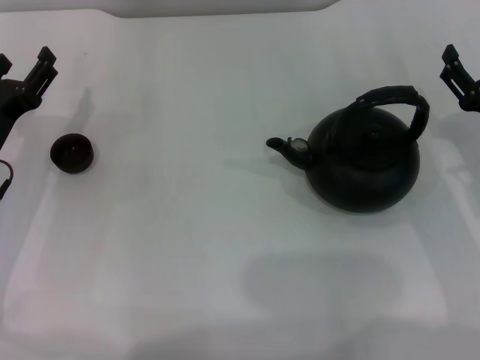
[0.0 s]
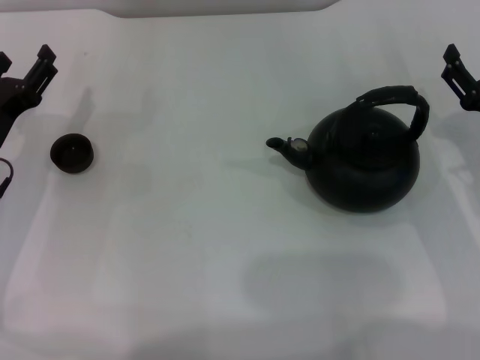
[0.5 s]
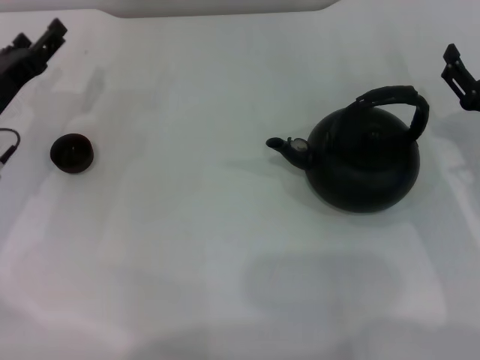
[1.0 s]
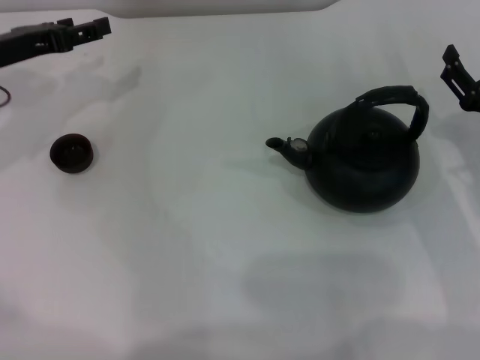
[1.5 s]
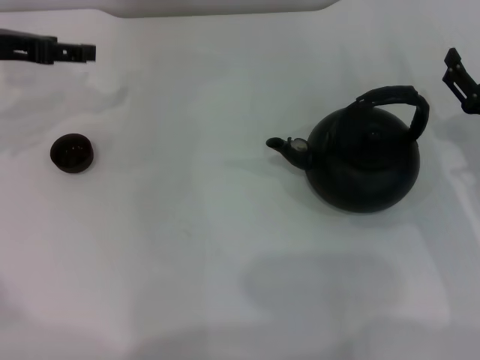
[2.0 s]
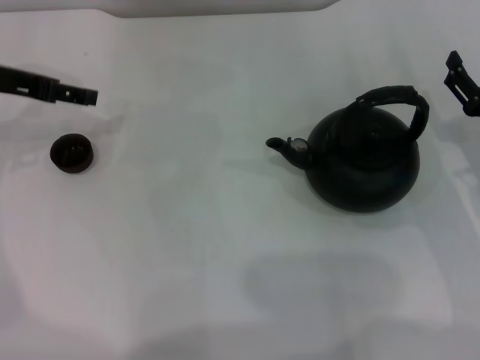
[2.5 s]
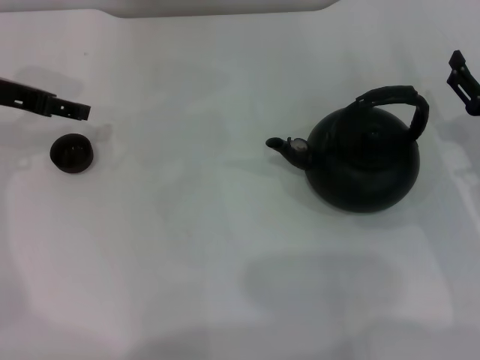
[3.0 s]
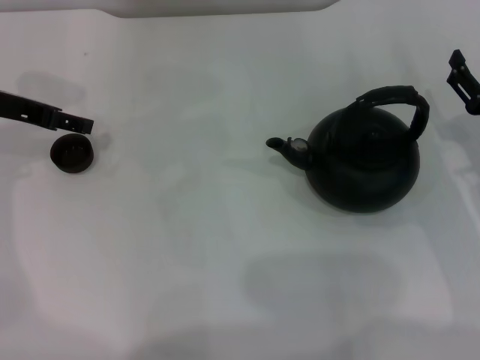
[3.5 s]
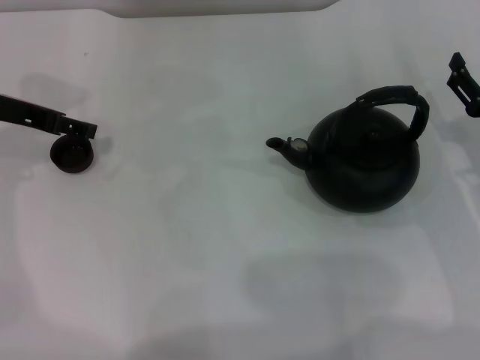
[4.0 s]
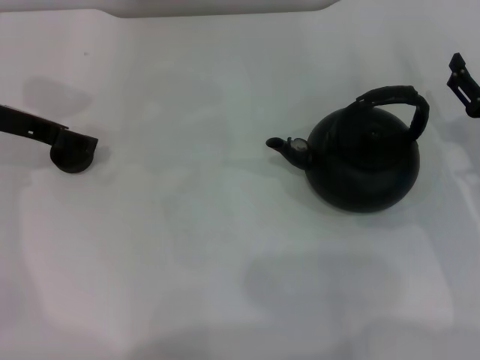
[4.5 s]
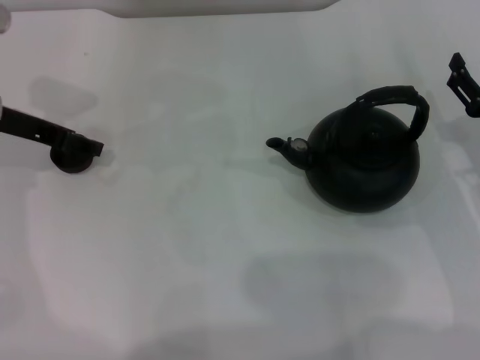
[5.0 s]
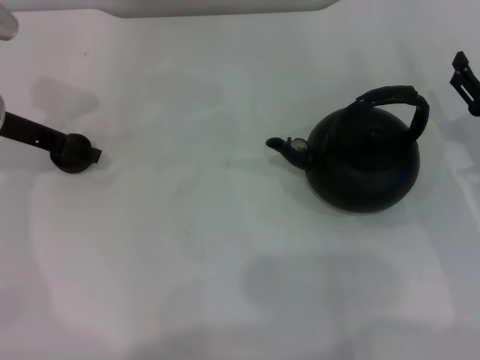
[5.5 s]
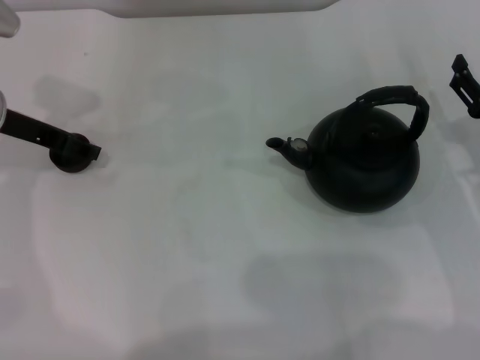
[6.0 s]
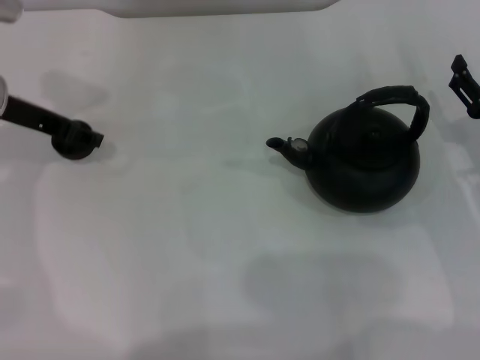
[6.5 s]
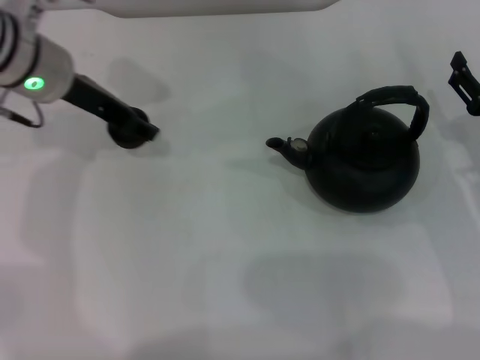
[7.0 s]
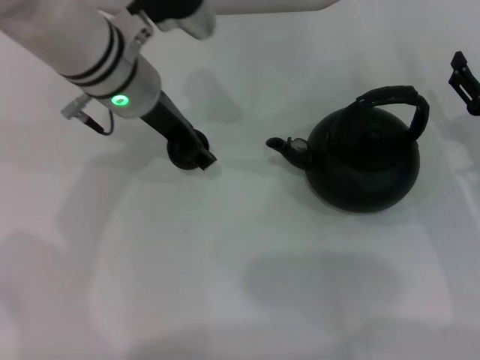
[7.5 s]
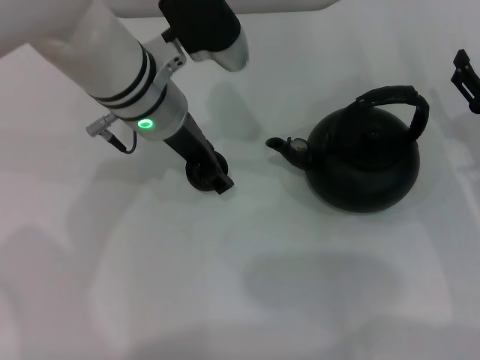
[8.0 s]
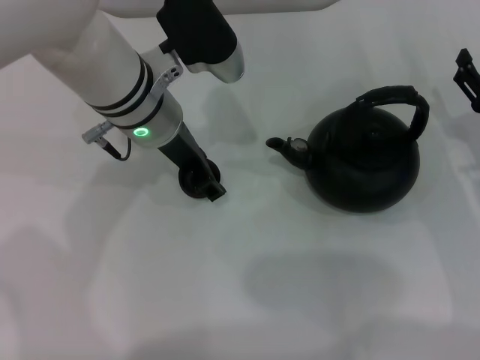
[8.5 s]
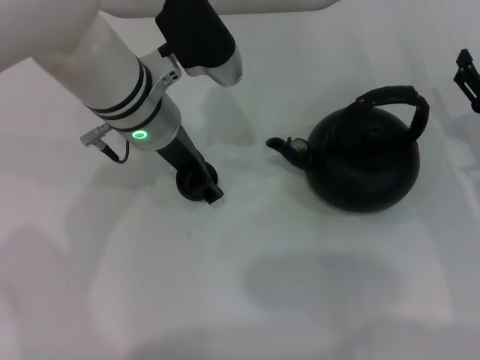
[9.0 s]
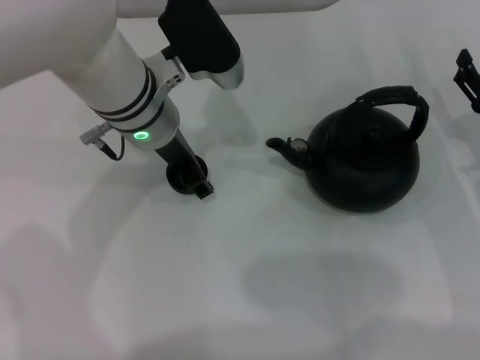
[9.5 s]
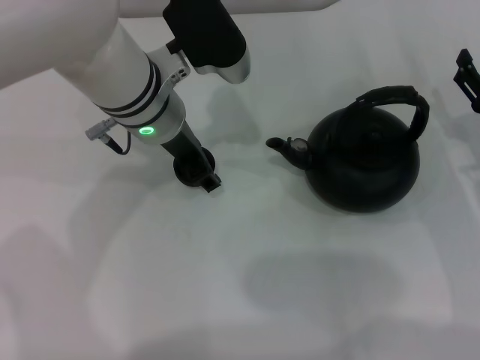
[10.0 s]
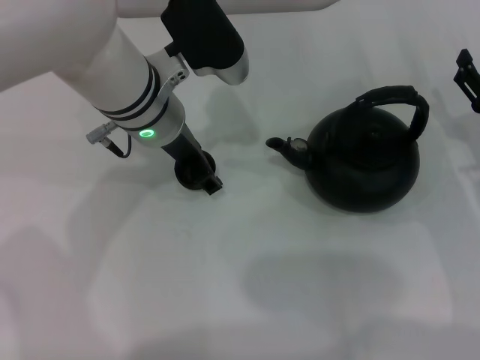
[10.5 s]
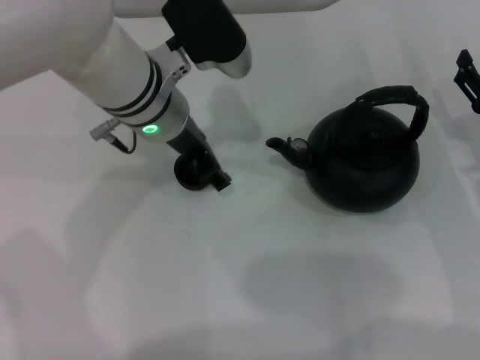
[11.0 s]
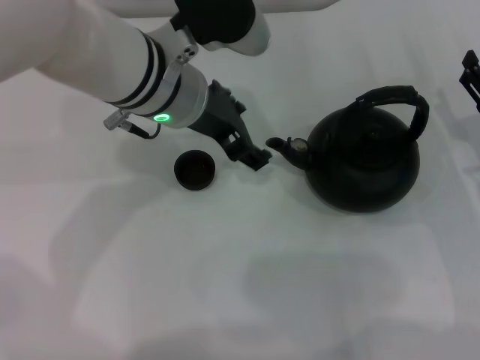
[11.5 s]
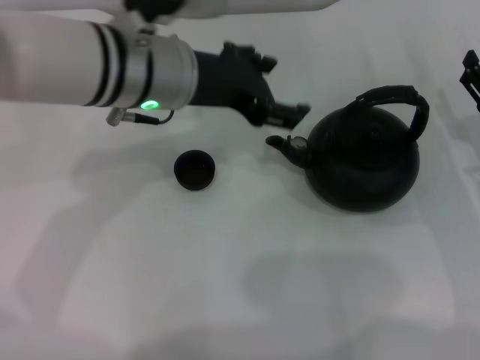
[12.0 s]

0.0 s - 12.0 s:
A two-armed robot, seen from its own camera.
Task of the whole recording: Grasp the handle of the teapot with one hand and pour tea into the teacup.
Step, 0.0 s - 6.5 s: Pick up the teacup with the left gripper.
Step, 7.0 s - 11.0 s: Place the teacup in the center of view with the left gripper.
0.0 s - 2.0 s: The left gripper goes some 15 cm upward and forward.
2.0 s - 4.0 s: The grippers stay close to where they were, moving slightly.
4.0 s - 6.0 s: The grippers stay close to where they were, moving slightly.
6.0 s - 8.0 s: The left gripper travels to the right by roughly 20 cm, and closes.
8.0 s - 10.0 s: The grippers stay close to where they were, moving slightly.
10.0 s - 12.0 s: The left gripper opens its fingers.

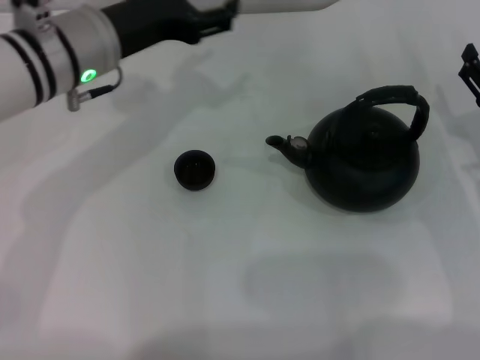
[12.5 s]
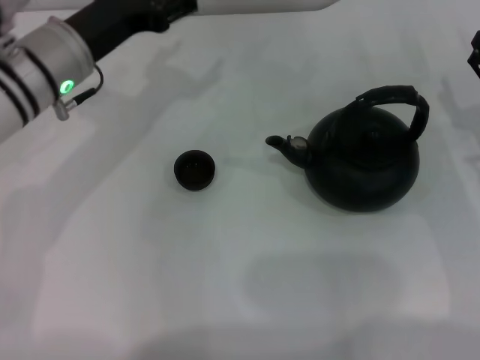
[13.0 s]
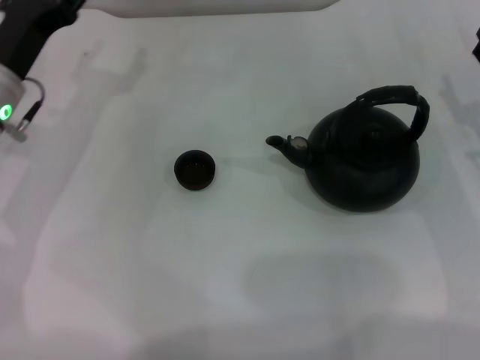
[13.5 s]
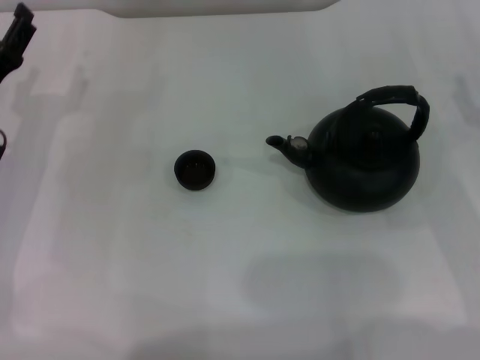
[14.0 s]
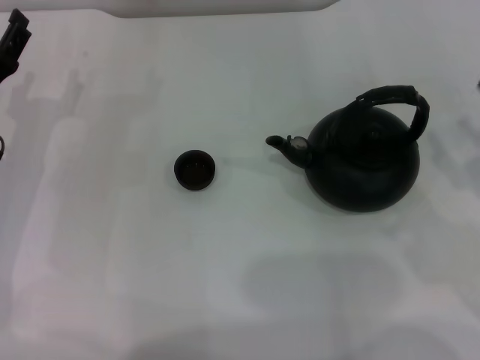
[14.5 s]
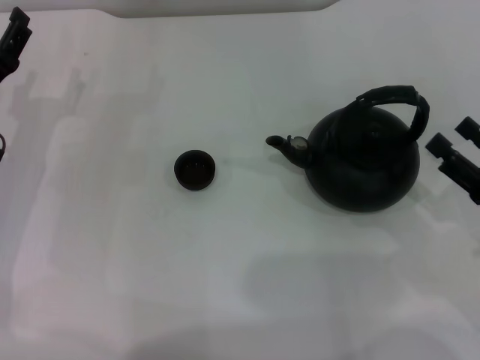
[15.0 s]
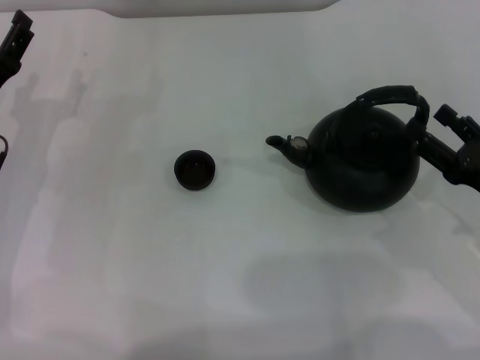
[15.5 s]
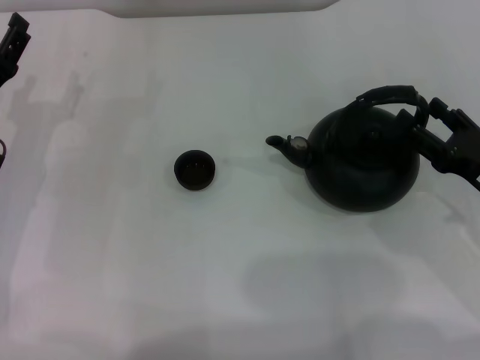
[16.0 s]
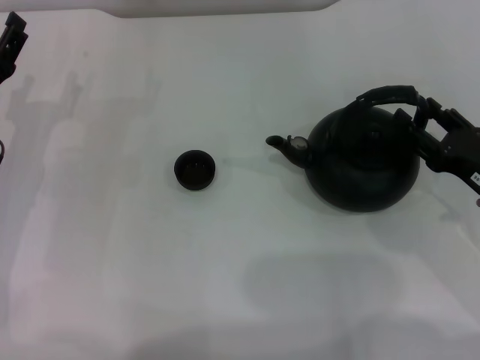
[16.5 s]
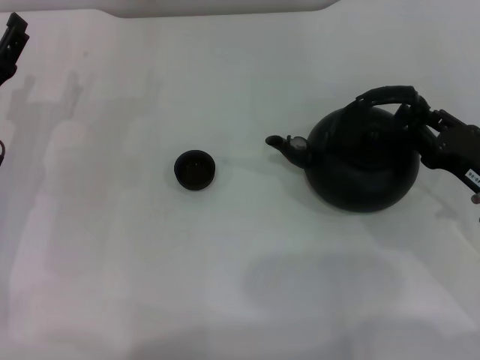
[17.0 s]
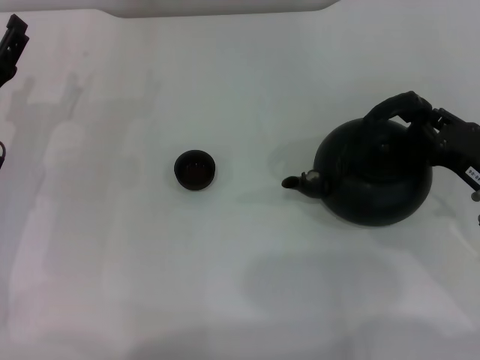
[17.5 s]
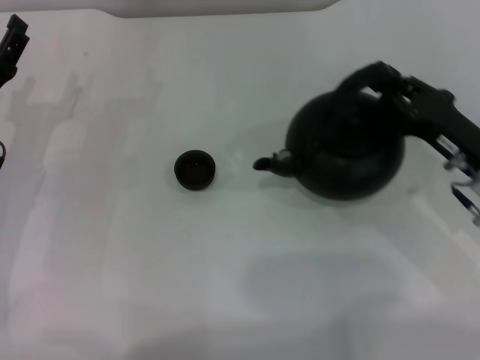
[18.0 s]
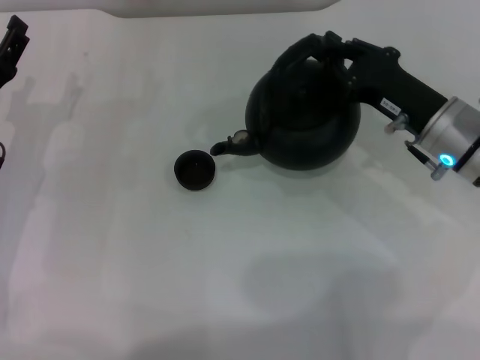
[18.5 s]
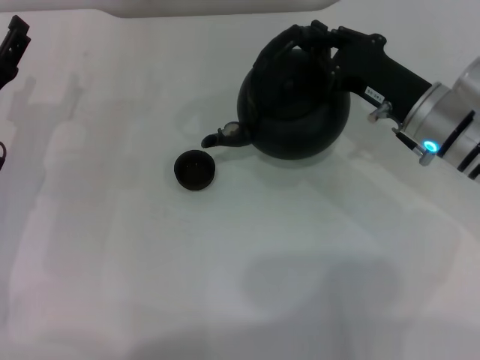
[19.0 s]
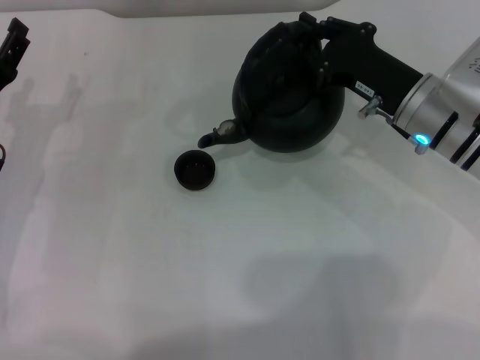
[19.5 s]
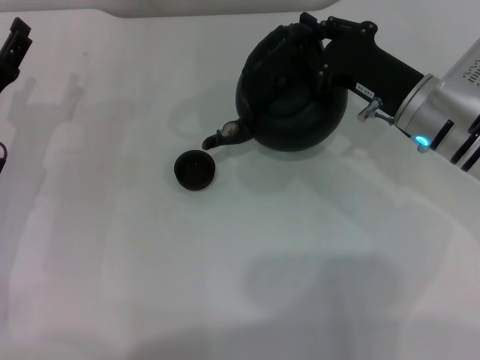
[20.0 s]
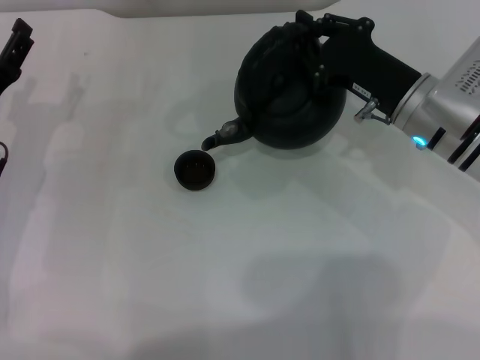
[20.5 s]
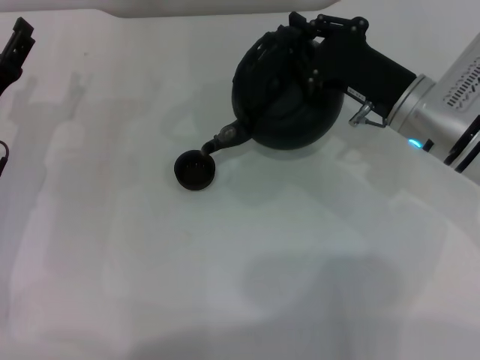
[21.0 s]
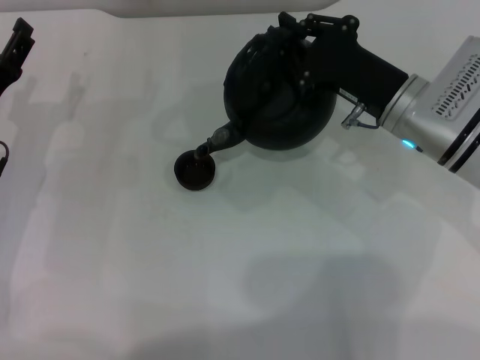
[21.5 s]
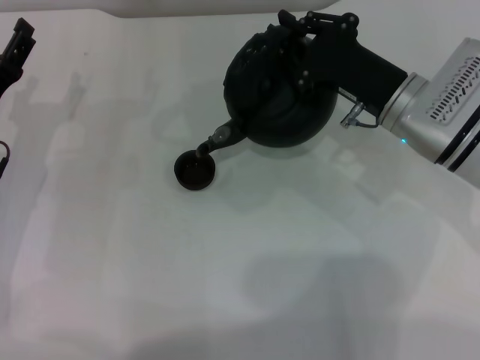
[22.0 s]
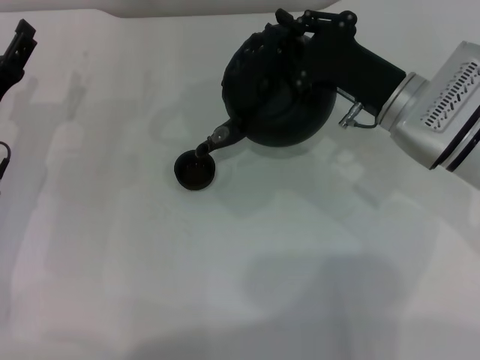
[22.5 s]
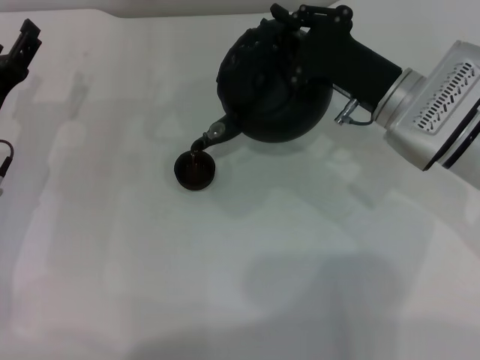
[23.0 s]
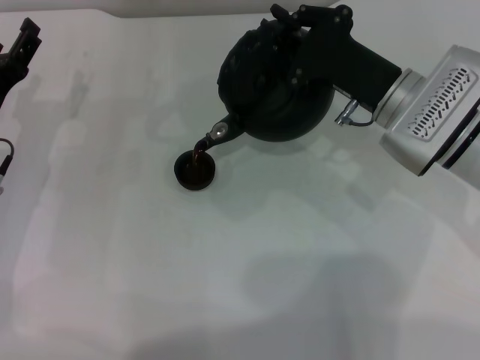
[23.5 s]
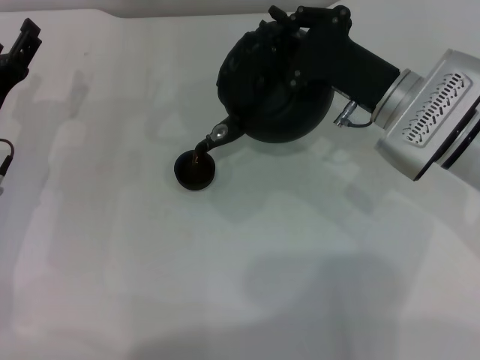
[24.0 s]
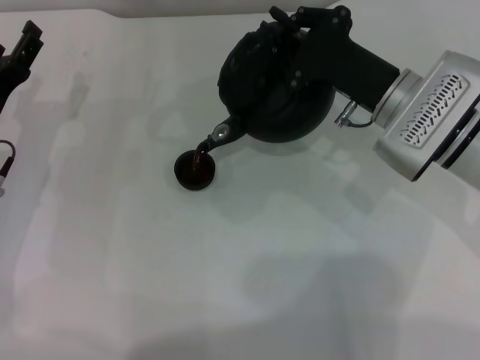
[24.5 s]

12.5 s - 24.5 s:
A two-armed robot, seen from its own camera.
Task of the whole recording: Grasp the handle of the teapot with one hand and pour tea into the teacup.
Step, 12.5 s - 18.0 s: Pick up the teapot with the right gripper.
12.5 s - 14.5 s: The left gripper goes some 15 cm to the left, downward and backward. Meanwhile the right gripper moves backward, roughly 5 cm.
14.5 s - 16.5 s: The right gripper ends up some 5 cm from where it was.
16.5 s - 18.5 s: The right gripper travels forward and to the left by approximately 10 cm, and closes.
18.5 s - 20.5 s: There are only small adjustments of the grippers.
20.5 s - 22.5 s: The grippers make only small movements.
22.5 s - 24.5 s: The grippers move only a little.

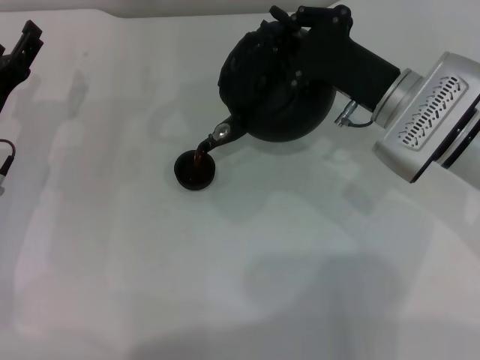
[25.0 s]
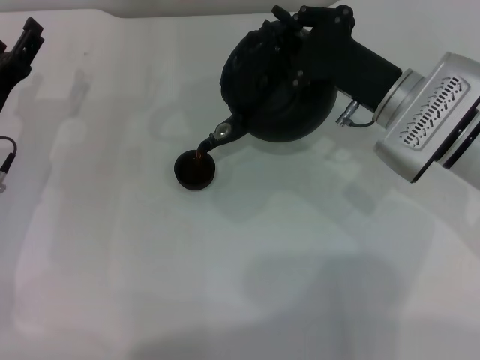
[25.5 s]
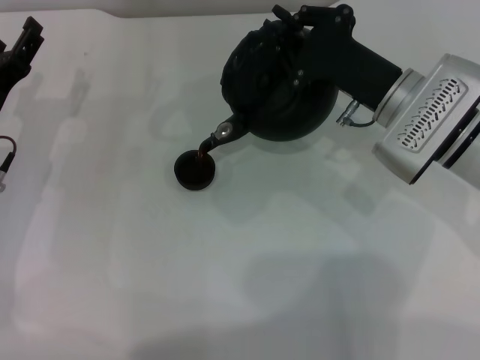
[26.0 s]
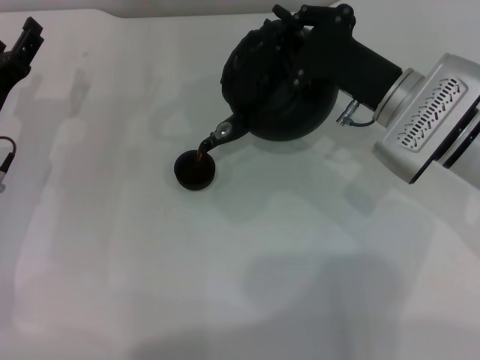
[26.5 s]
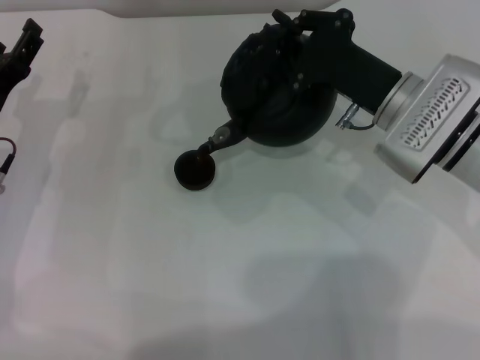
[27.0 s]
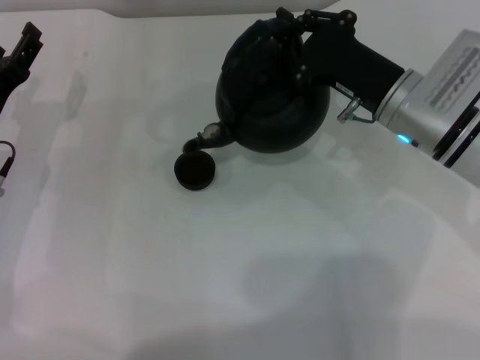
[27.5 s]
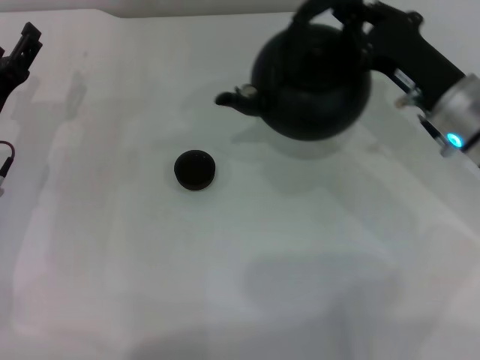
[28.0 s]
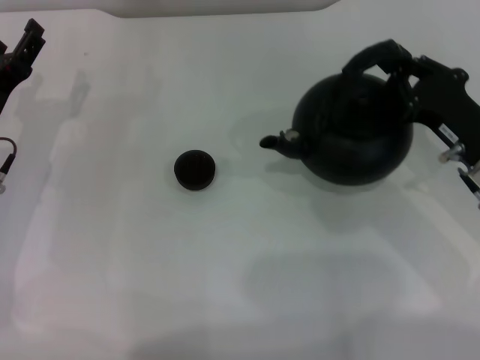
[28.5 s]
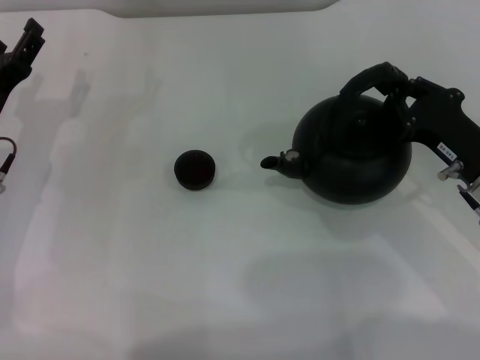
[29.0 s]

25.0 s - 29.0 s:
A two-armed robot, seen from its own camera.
Task of the whole recording: Grasp the handle of the teapot with one hand and pour tea into the teacup.
Step, 25.0 s - 27.5 s: Pour tea into the teacup with the right gripper.
25.0 s - 27.0 s: The two grippers keep their place.
27.0 s - 29.0 s: The right gripper moves to the right and backward, some 10 cm.
